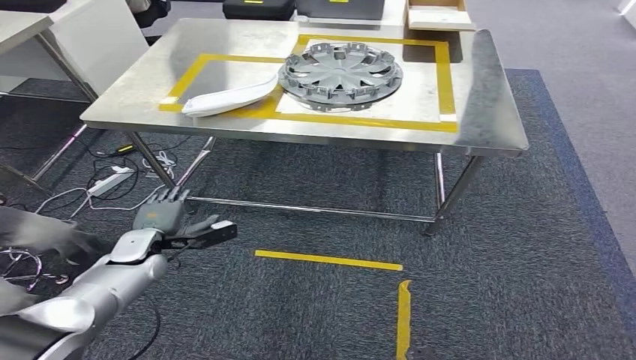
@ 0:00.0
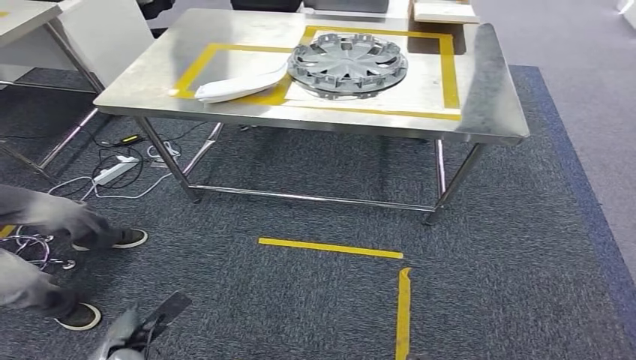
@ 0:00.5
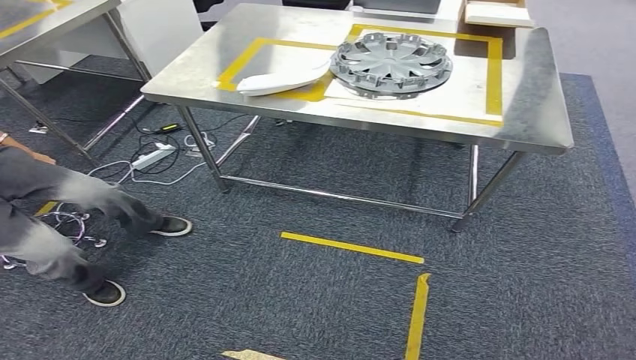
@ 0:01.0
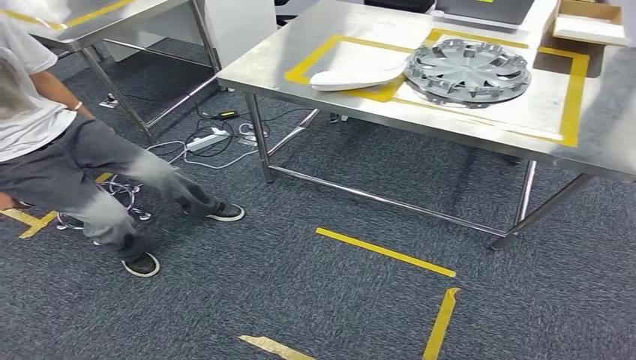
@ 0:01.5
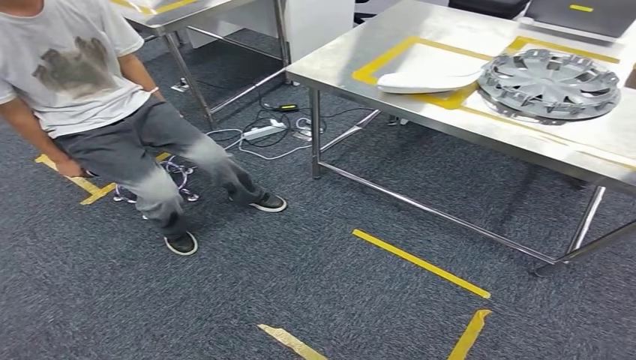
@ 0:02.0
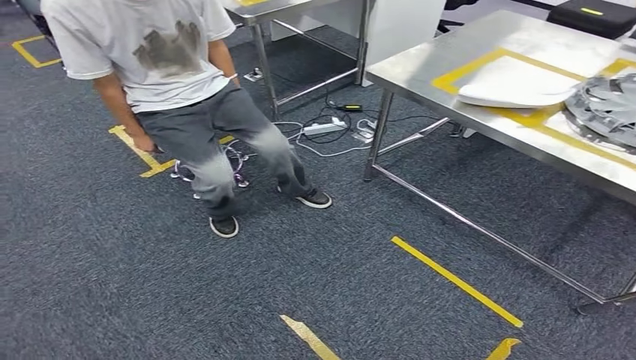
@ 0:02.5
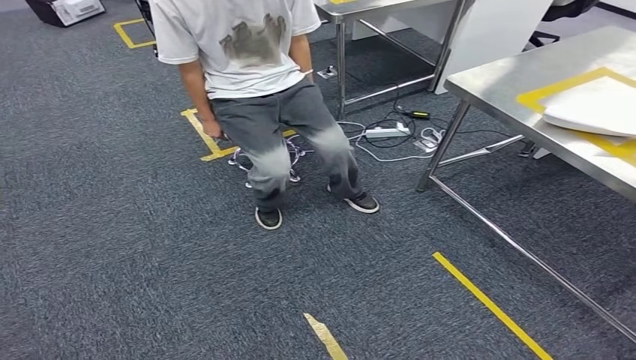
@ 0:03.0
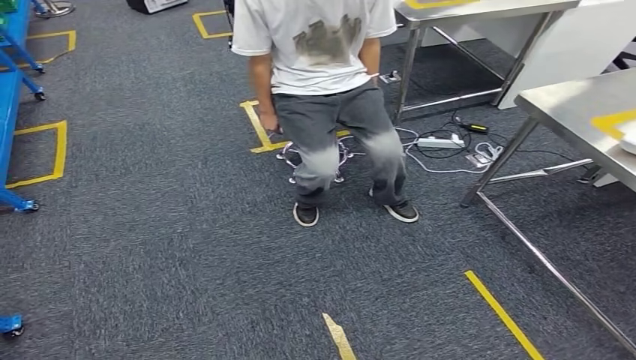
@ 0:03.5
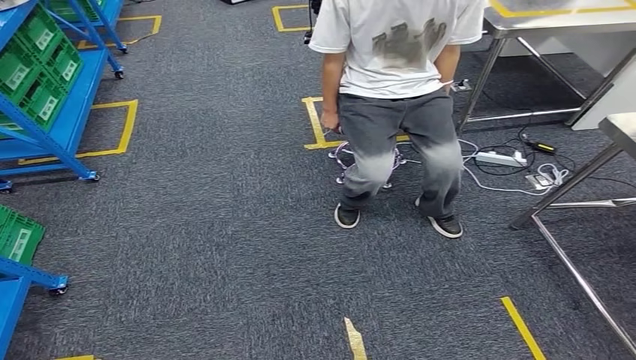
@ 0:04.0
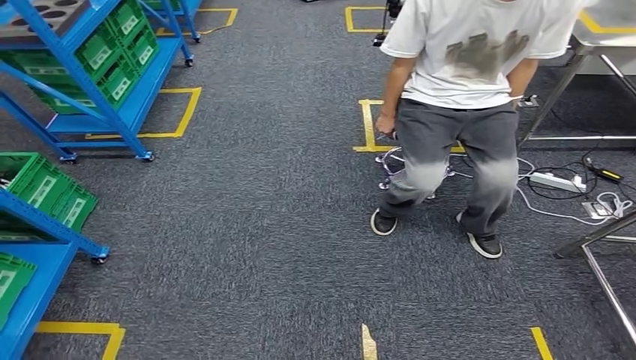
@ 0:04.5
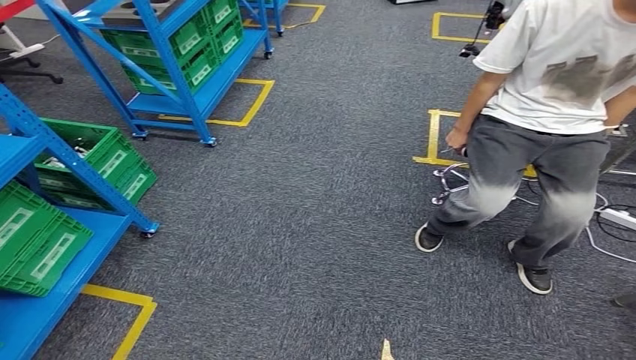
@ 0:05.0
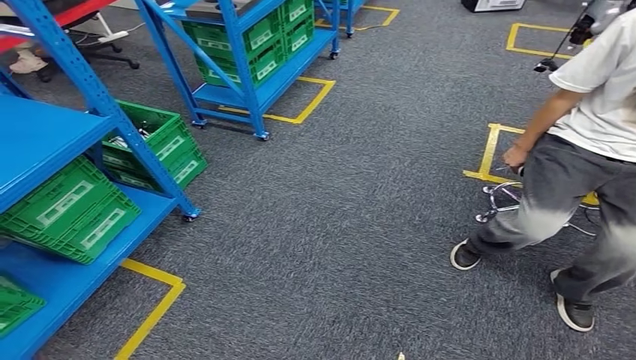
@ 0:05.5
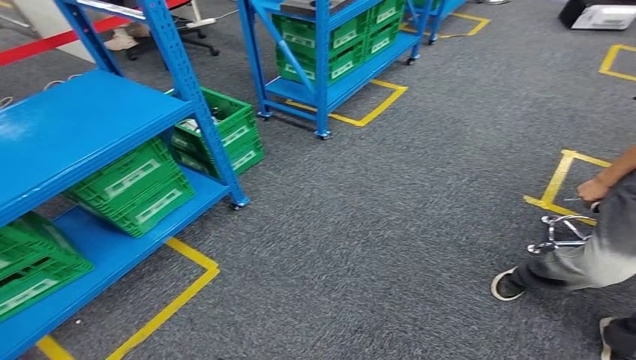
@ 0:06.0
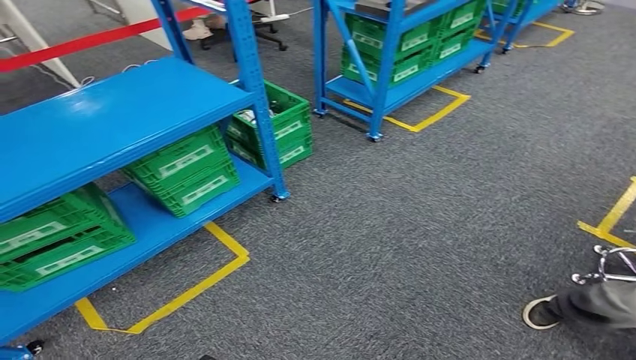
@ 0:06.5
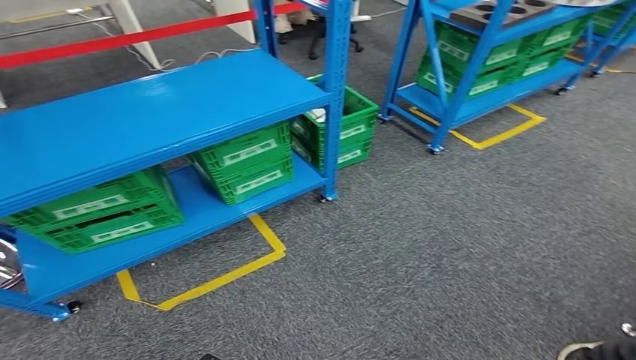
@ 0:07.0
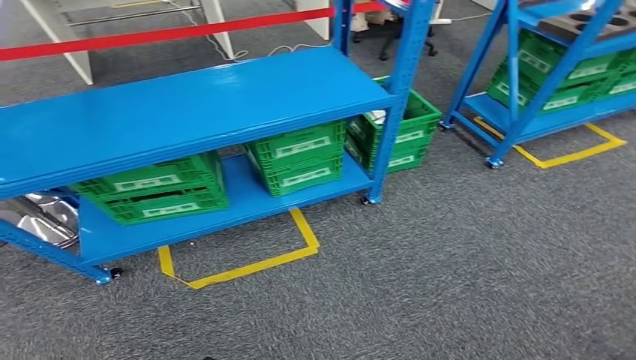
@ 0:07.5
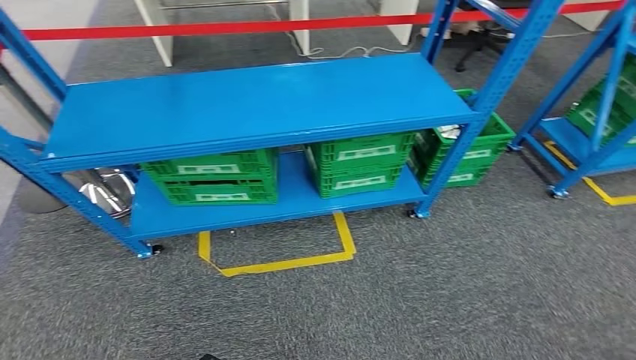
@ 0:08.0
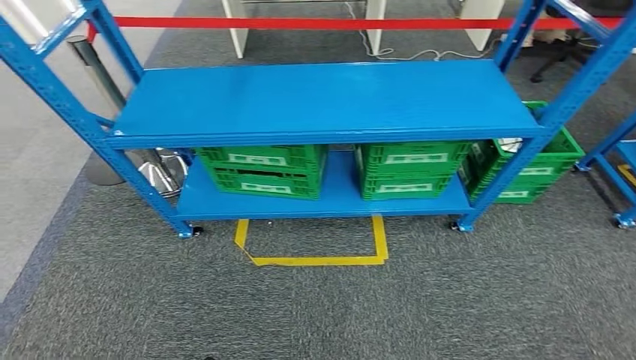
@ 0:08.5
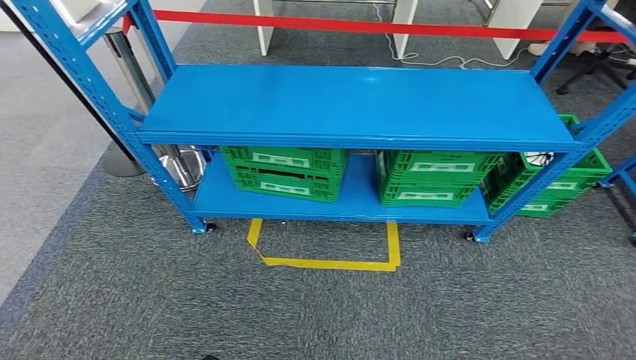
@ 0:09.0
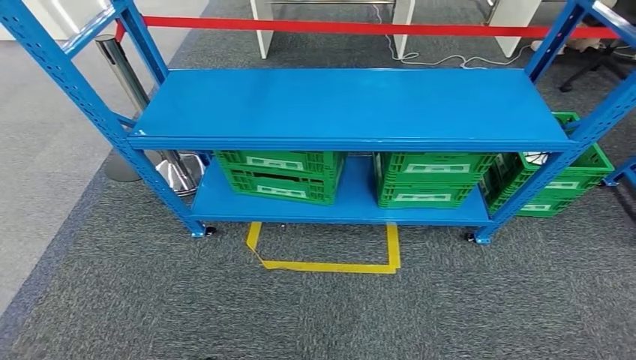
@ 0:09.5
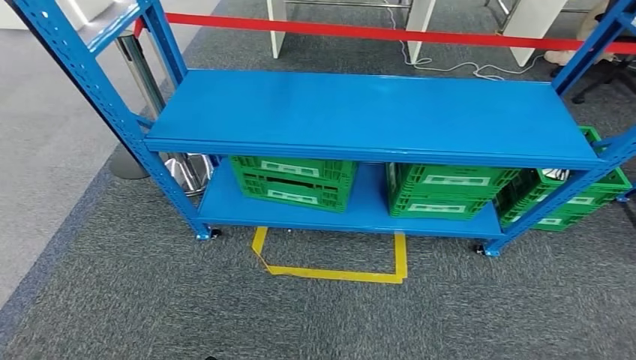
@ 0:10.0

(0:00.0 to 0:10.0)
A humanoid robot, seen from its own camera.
Step, 0:00.0 - 0:10.0: Move to the initial position at the workbench.

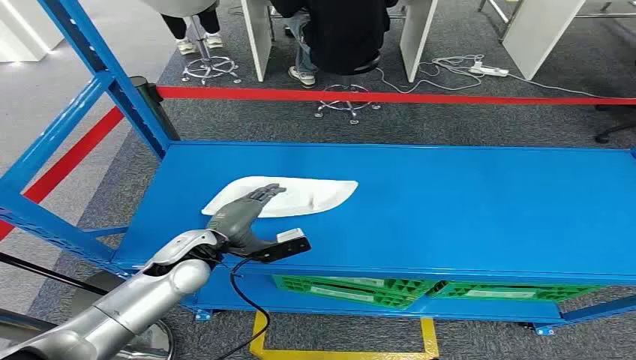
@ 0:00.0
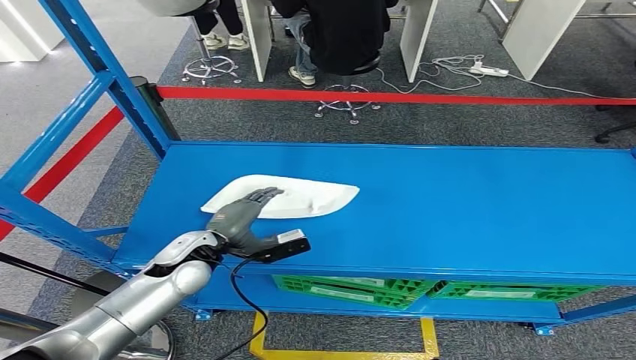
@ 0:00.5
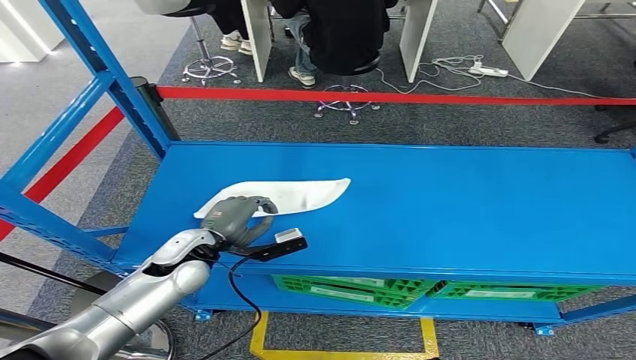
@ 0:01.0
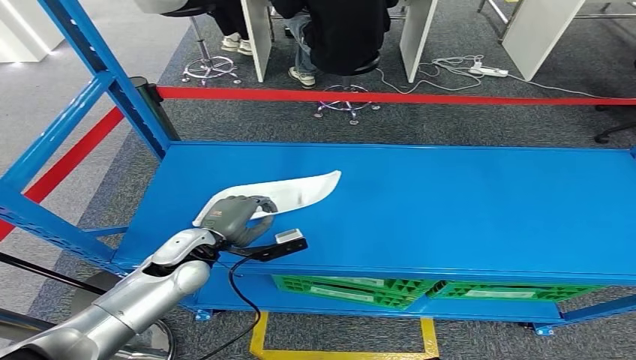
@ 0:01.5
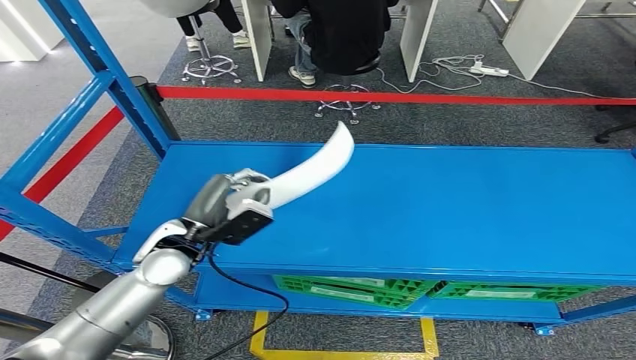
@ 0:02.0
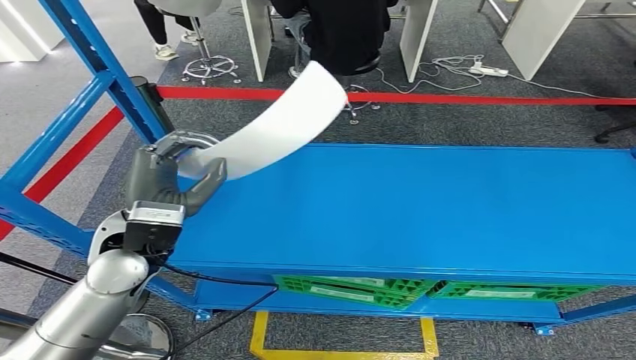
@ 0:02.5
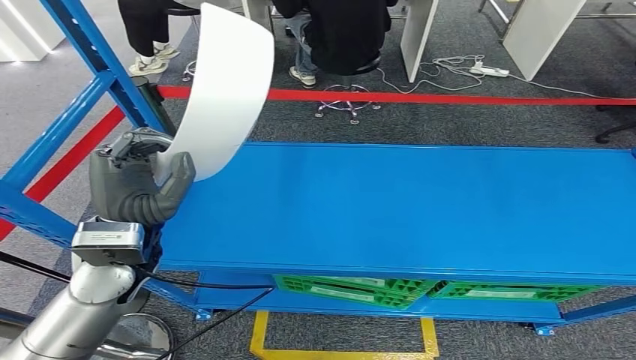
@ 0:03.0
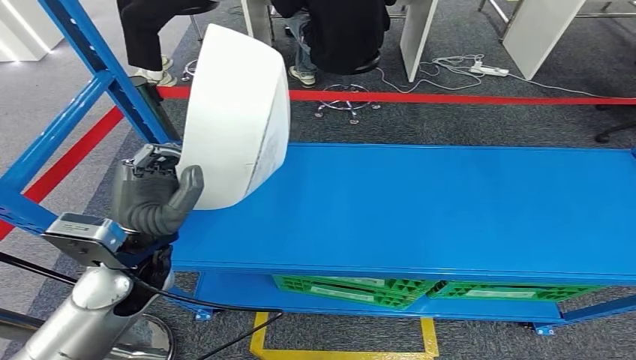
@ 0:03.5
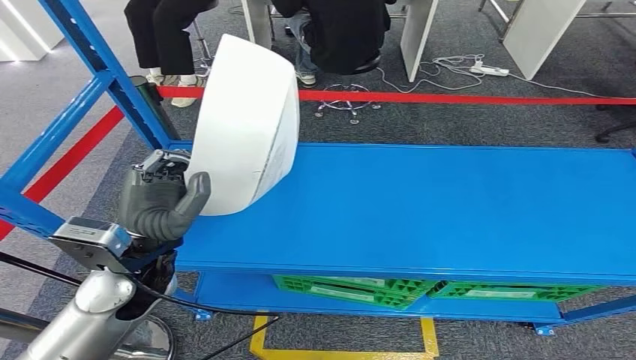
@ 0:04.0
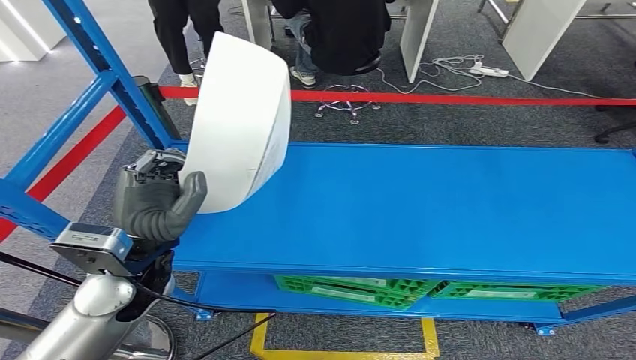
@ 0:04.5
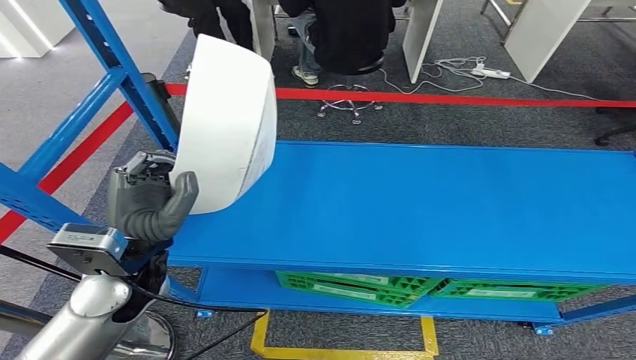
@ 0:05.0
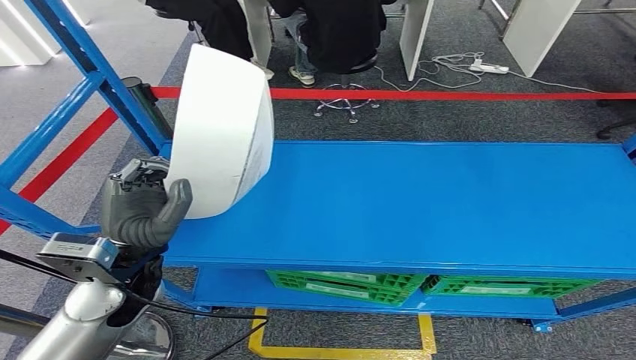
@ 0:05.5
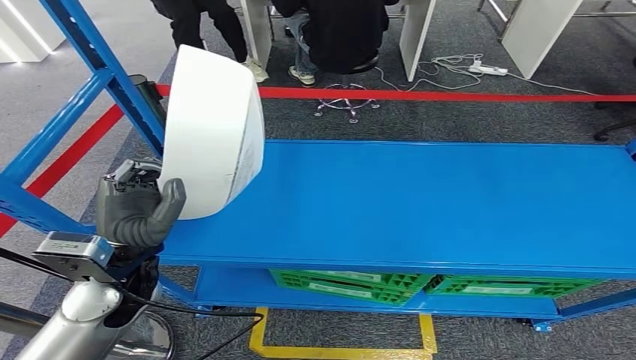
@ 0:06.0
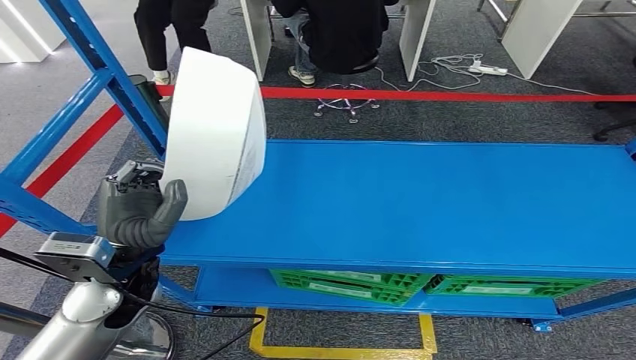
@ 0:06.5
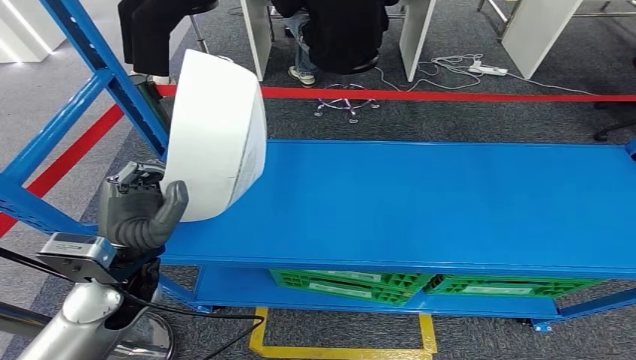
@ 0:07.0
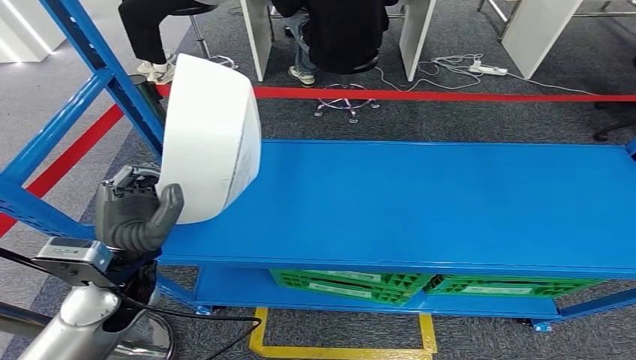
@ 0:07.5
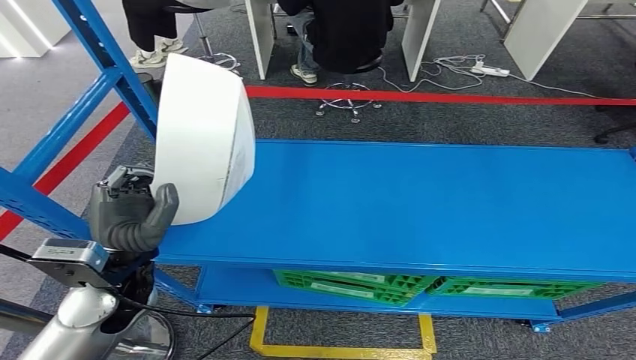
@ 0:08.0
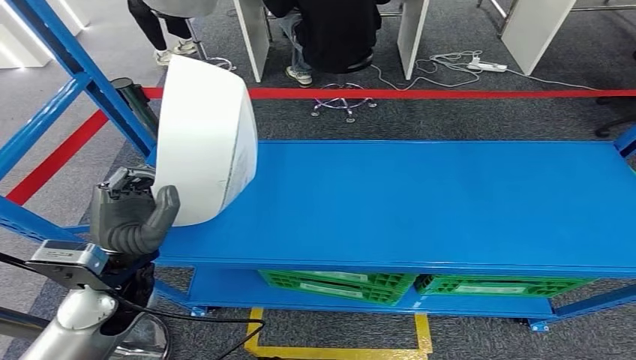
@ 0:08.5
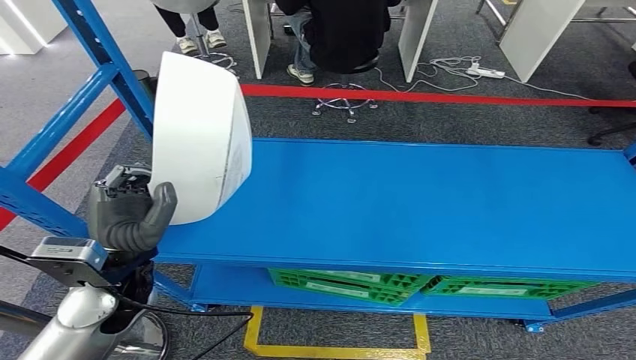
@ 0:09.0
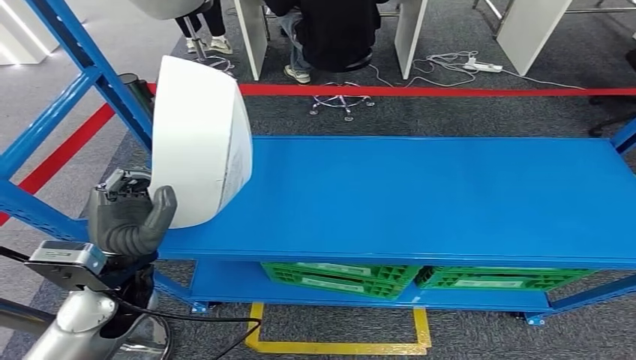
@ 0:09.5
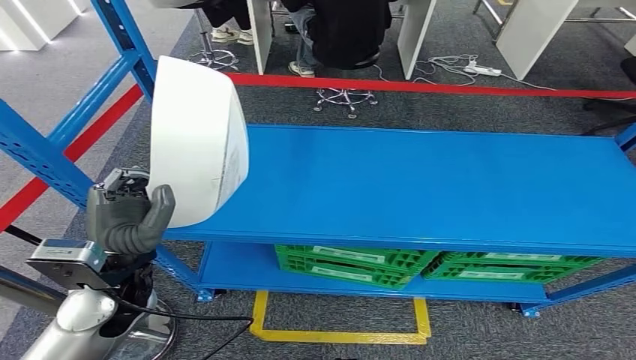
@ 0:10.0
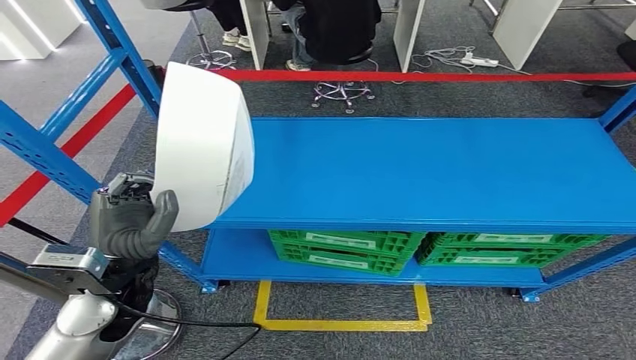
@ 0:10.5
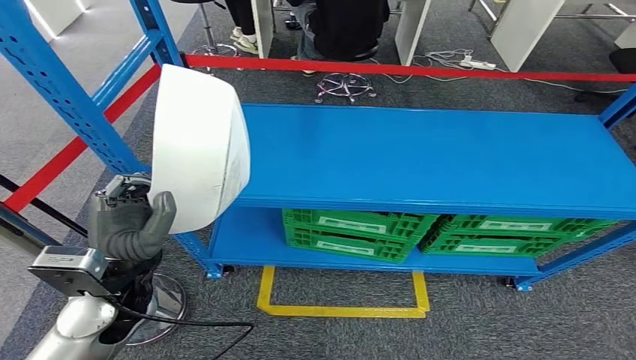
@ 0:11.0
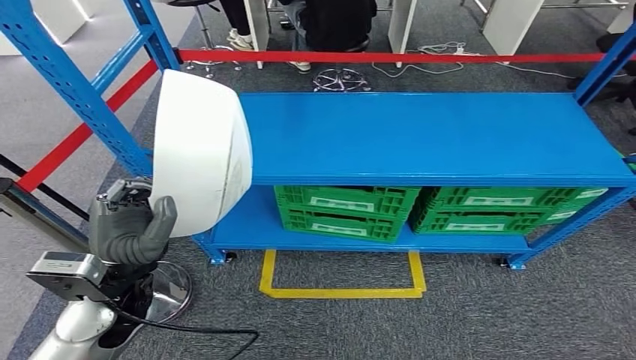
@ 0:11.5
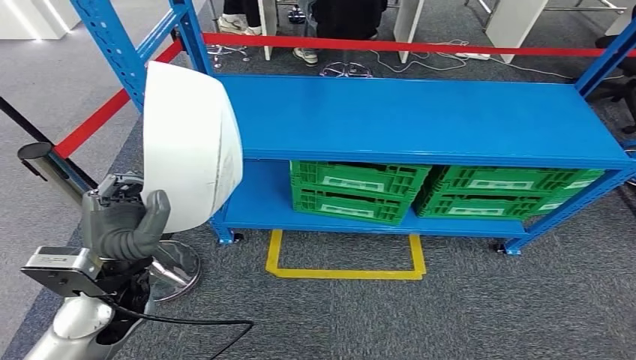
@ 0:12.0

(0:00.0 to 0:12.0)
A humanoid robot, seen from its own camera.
Step, 0:00.0 - 0:02.5: Pick up the small parts from the shelf.
0:02.0 - 0:04.0: The left hand heads upward and backward, covering about 10 cm.
0:06.0 - 0:08.0: There are only small adjustments of the hands.
